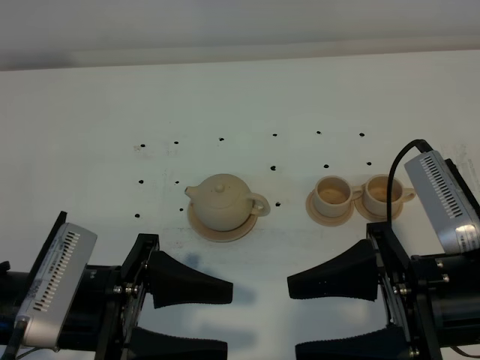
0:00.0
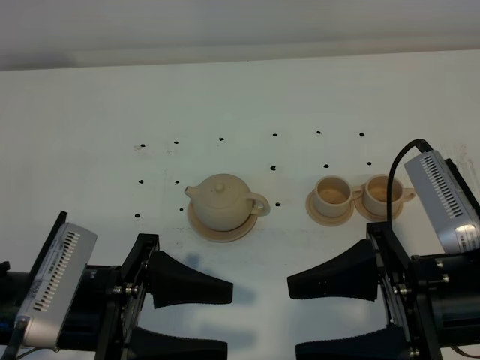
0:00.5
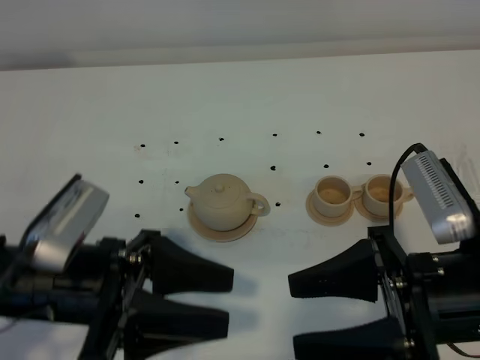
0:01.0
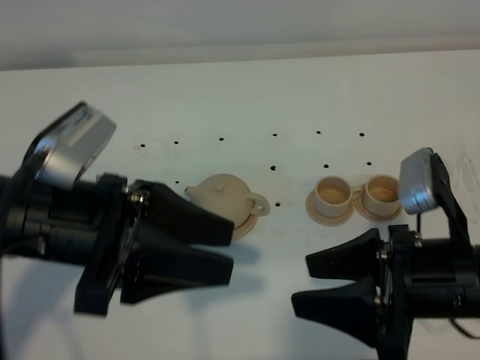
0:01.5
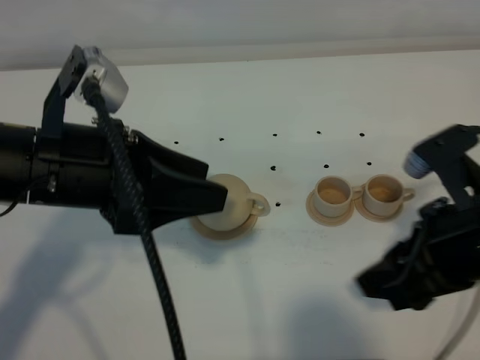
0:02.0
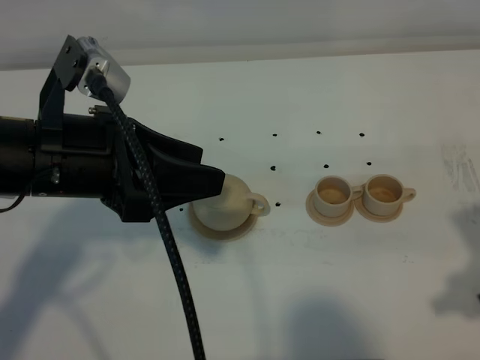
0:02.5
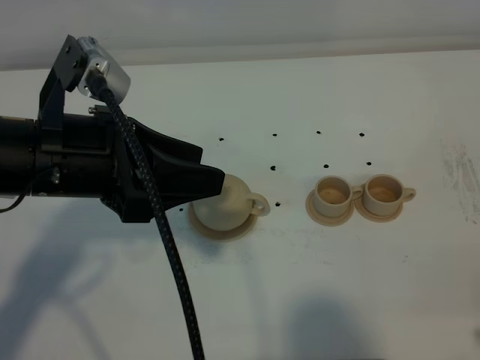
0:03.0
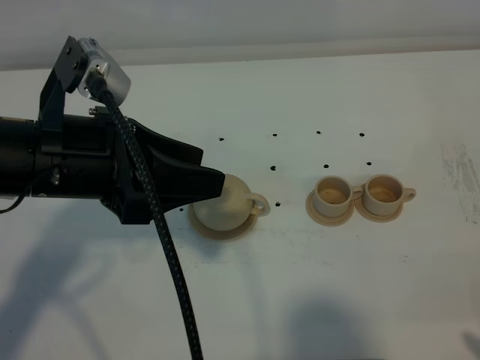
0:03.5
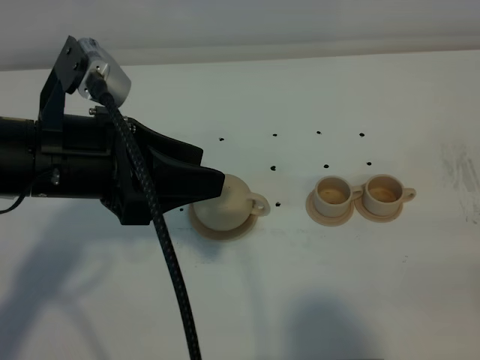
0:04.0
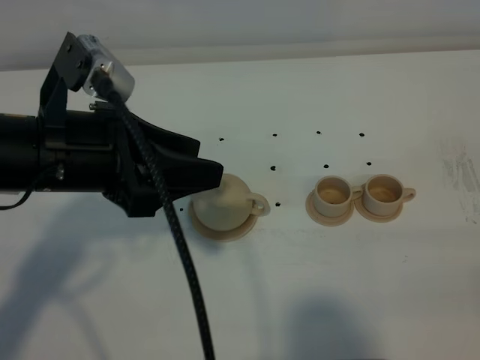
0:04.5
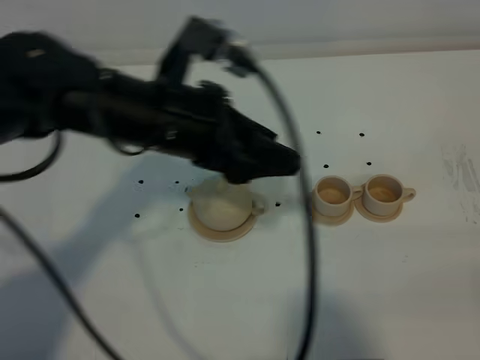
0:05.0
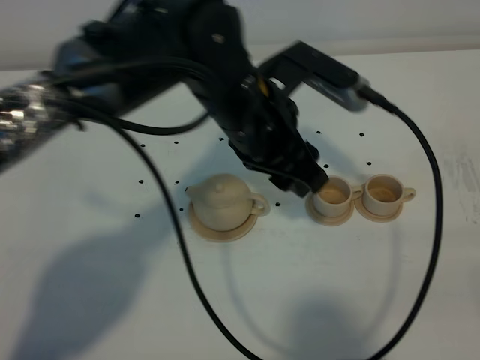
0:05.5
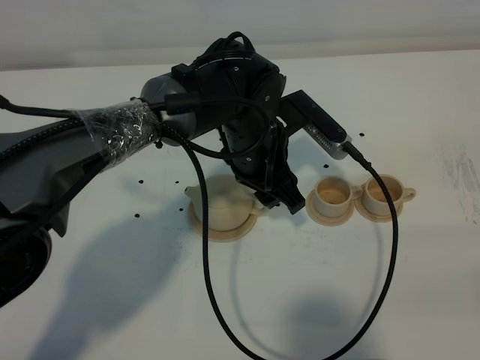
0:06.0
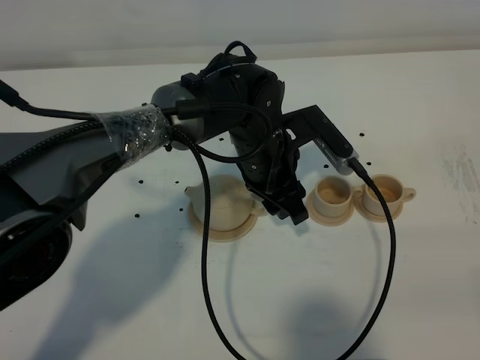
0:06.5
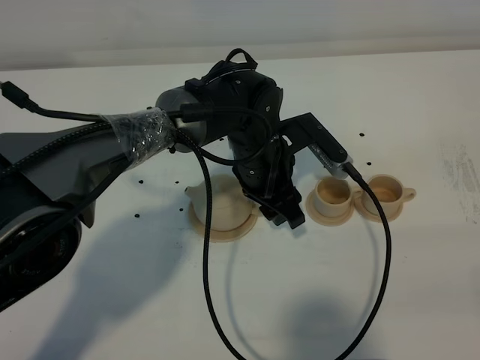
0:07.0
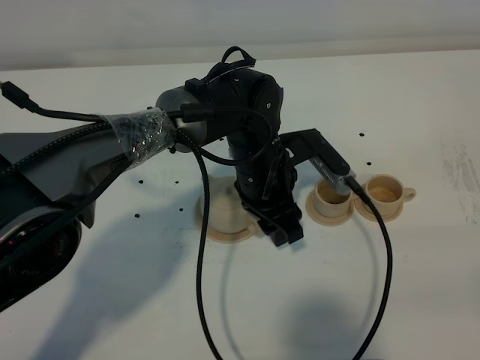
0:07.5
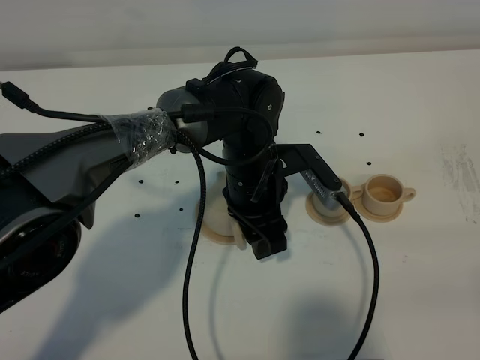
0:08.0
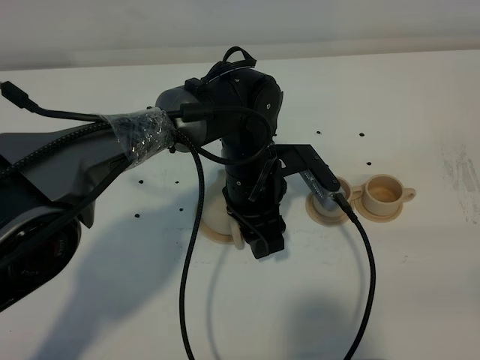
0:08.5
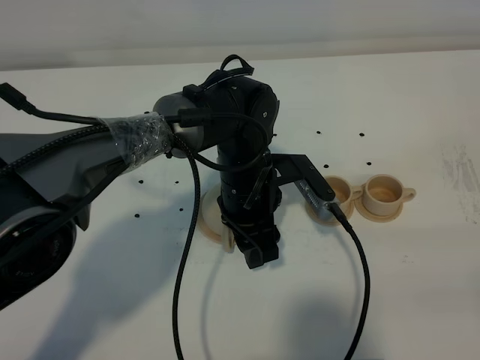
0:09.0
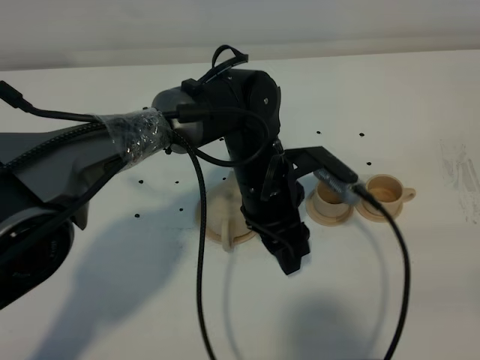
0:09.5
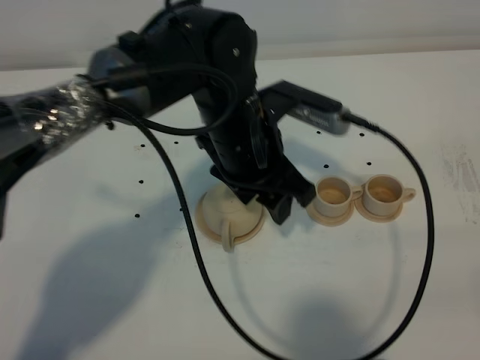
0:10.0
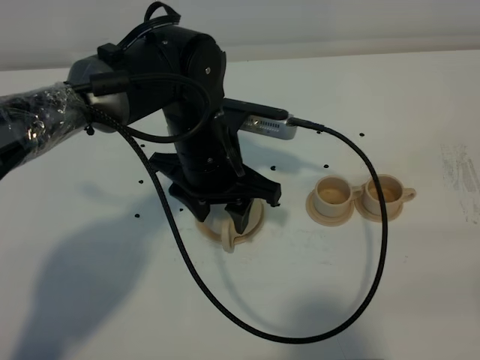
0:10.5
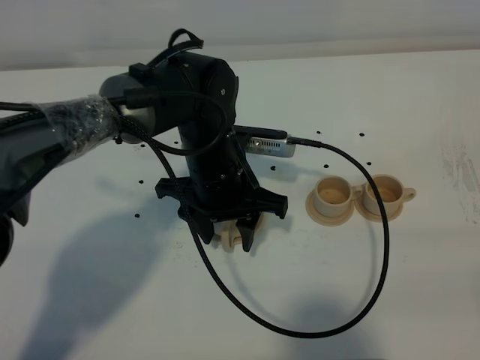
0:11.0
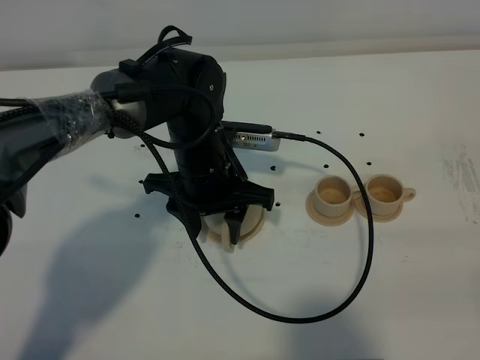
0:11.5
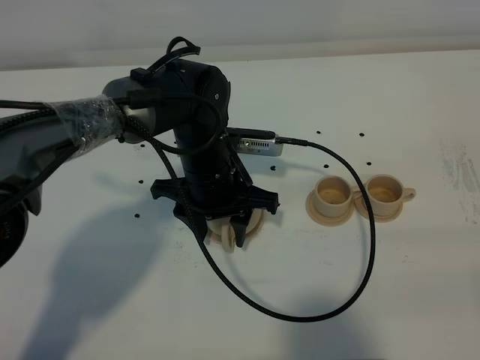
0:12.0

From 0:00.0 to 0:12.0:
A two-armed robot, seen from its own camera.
Task of the whole recording: grasp the brown teapot and pour the tea into the two brown teacups one by one, put the brown teapot back in its original place.
From 0:00.0 to 0:02.0: The right gripper ends up some 5 cm from where it was. The left gripper moves upward and forward, some 15 cm.
From 0:02.0 to 0:04.0: The right gripper goes roughly 20 cm backward and to the right.
From 0:04.0 to 0:06.0: The left gripper travels to the right, forward and downward by roughly 25 cm.
From 0:06.0 to 0:08.0: The right gripper closes its fingers.
From 0:08.0 to 0:10.0: The left gripper shifts approximately 10 cm upward.
From 0:10.0 to 0:12.0: The left gripper goes roughly 10 cm downward.

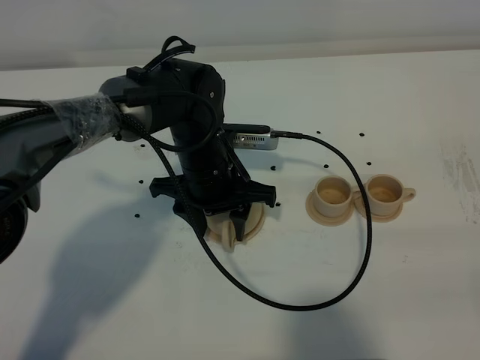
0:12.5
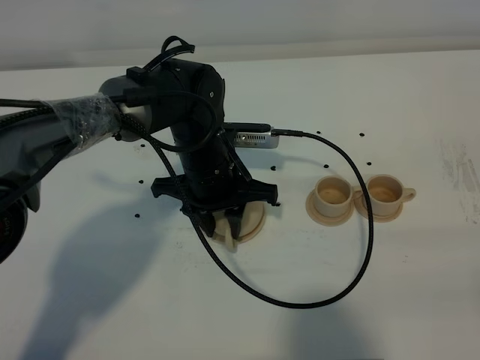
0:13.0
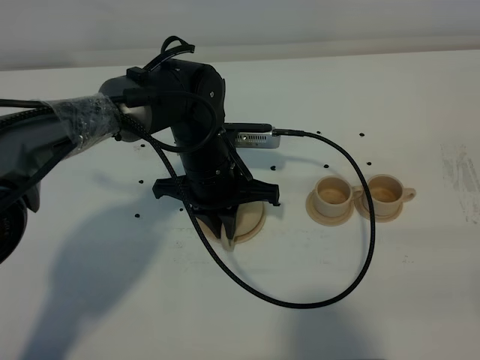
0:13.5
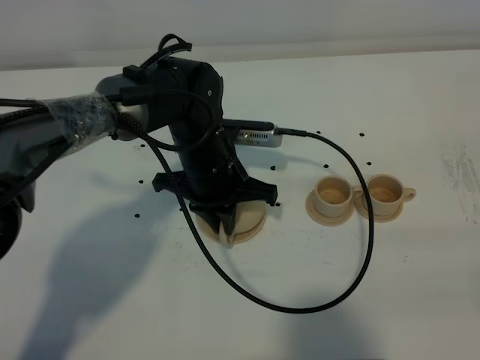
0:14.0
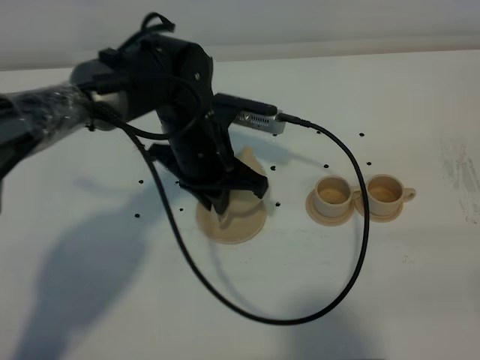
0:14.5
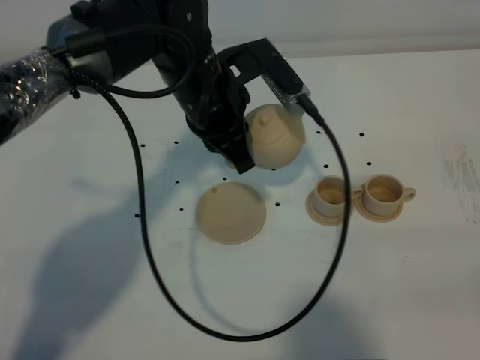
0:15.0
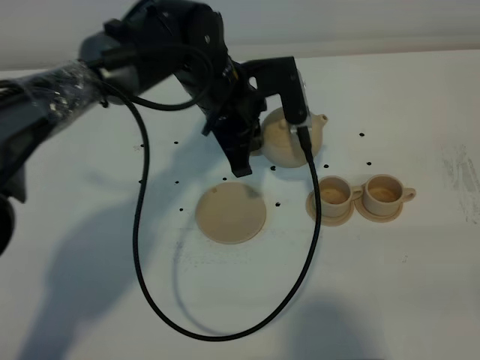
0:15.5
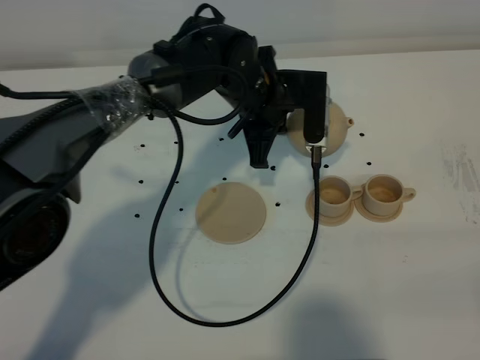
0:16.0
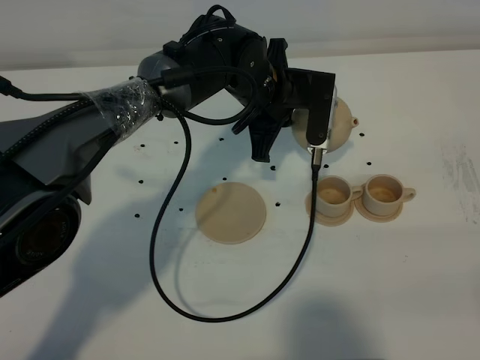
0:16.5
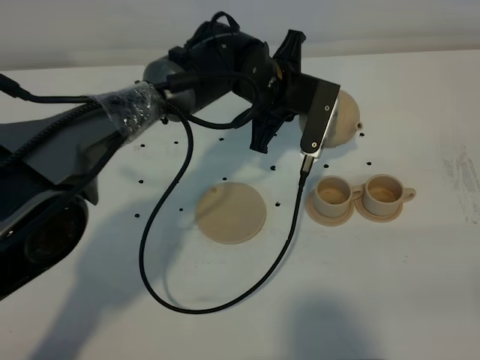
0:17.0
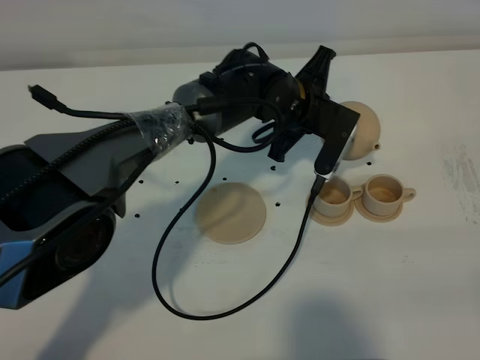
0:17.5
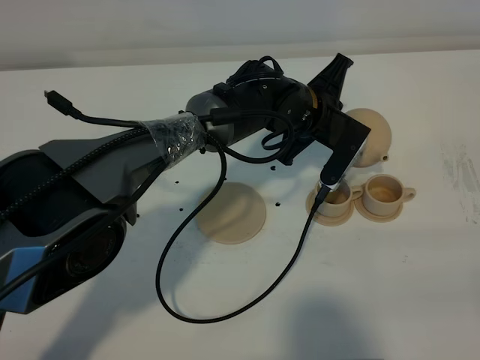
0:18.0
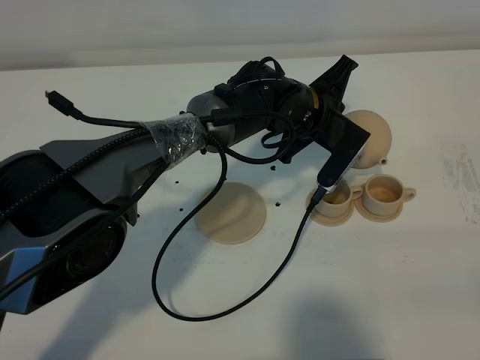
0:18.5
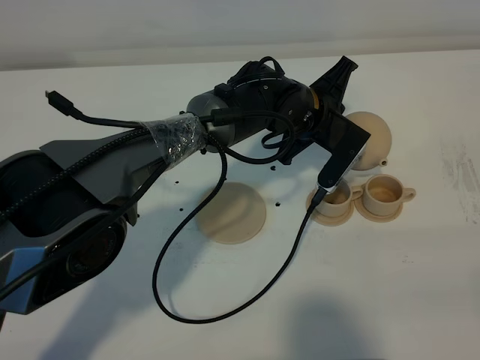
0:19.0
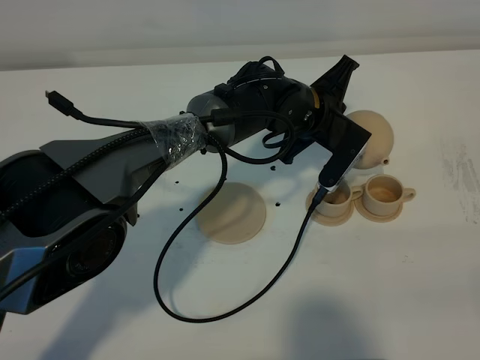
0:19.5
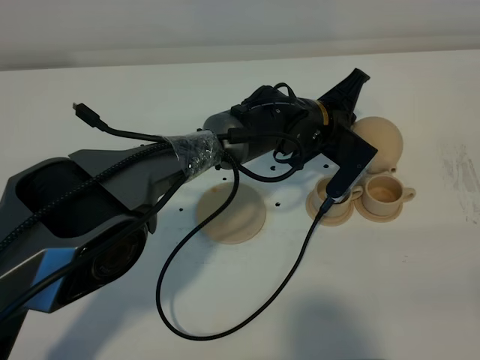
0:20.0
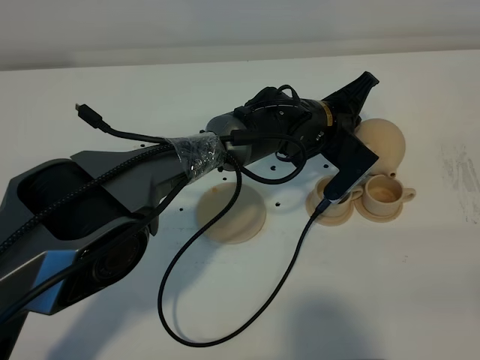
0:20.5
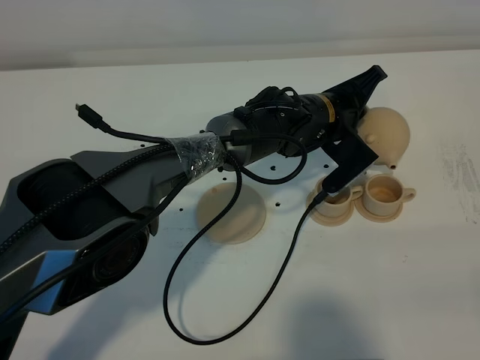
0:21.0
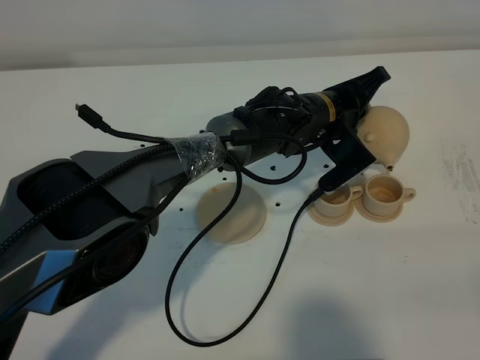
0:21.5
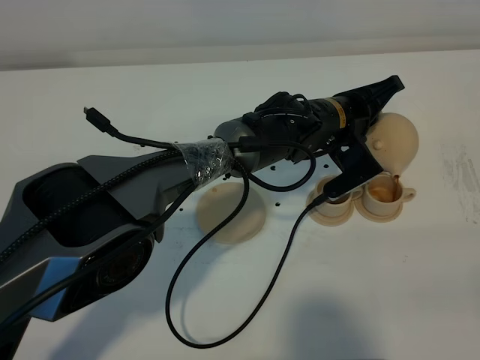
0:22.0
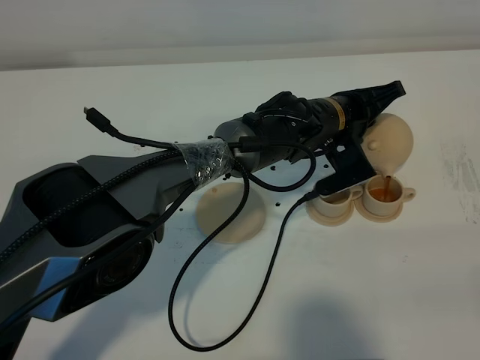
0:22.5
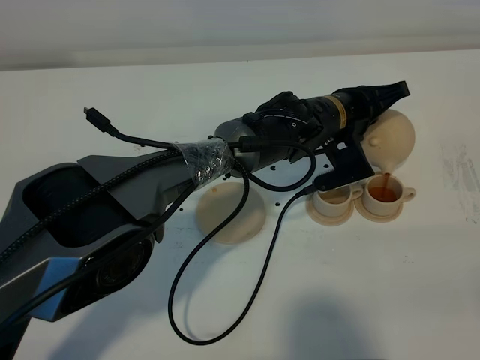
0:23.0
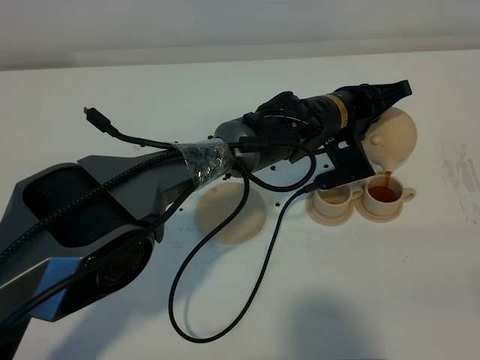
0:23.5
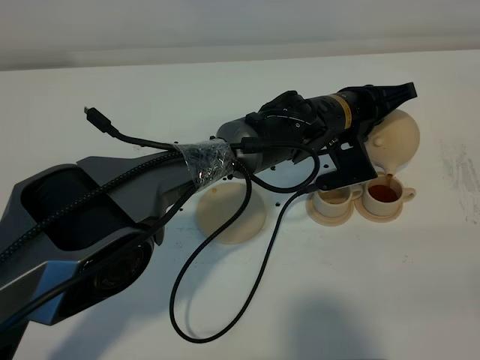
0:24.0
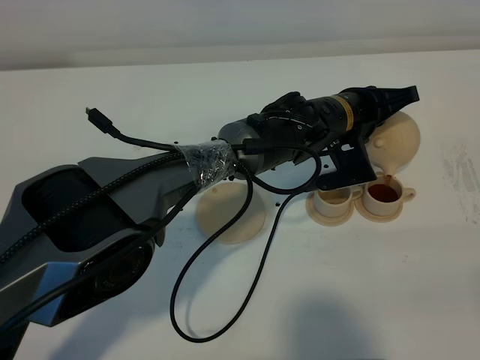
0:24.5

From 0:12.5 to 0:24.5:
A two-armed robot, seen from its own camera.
Task of the whole recording: grasp the brown teapot and pour the tea into the two brown teacups one by one, put the brown teapot back in its original place.
From 0:12.5 to 0:14.5: The left gripper closes its fingers.
From 0:14.5 to 0:16.5: The left gripper goes about 10 cm to the right and forward.
From 0:16.5 to 0:18.5: The left gripper moves to the right, approximately 5 cm.
From 0:22.5 to 0:24.5: There are only small adjustments of the grippers.

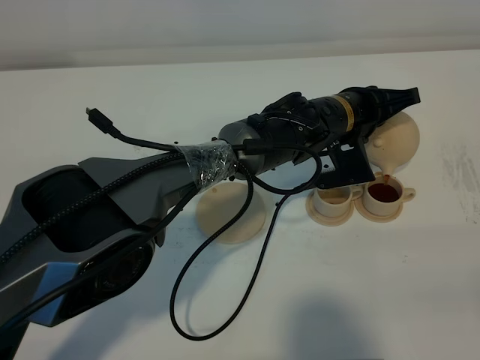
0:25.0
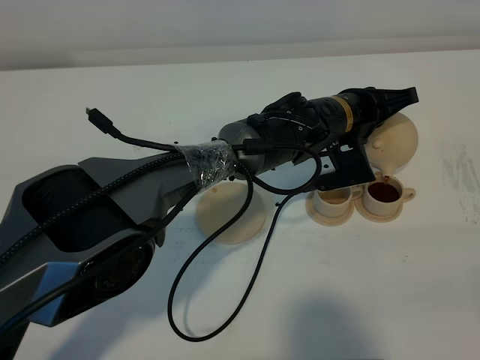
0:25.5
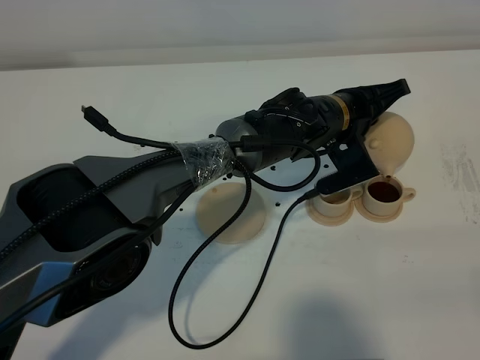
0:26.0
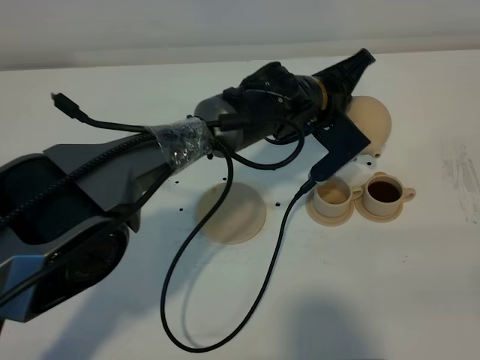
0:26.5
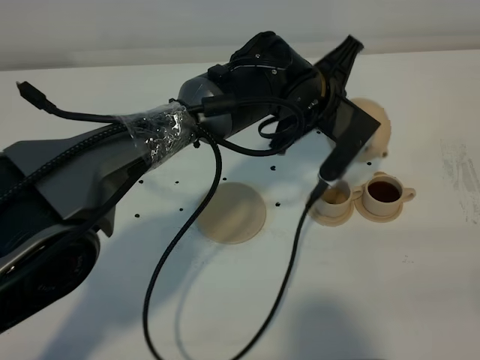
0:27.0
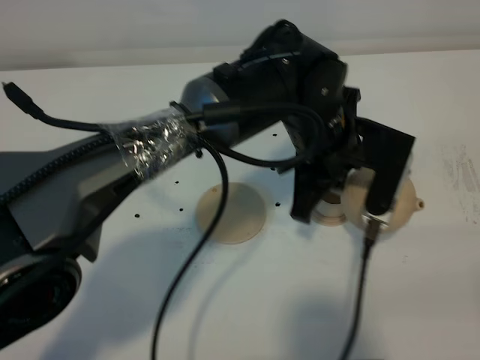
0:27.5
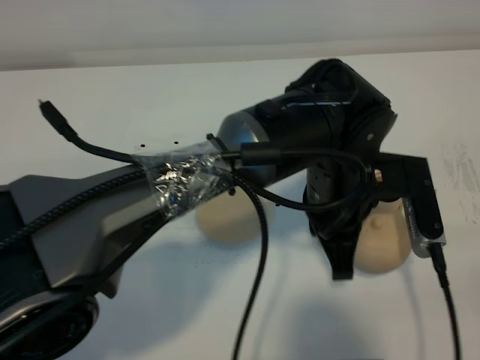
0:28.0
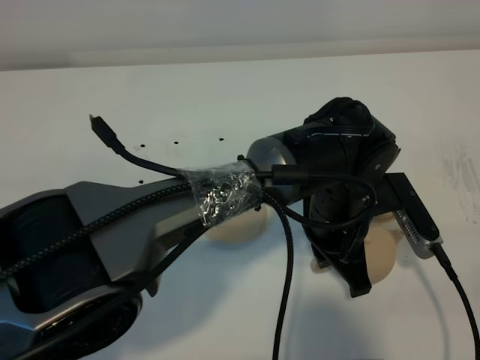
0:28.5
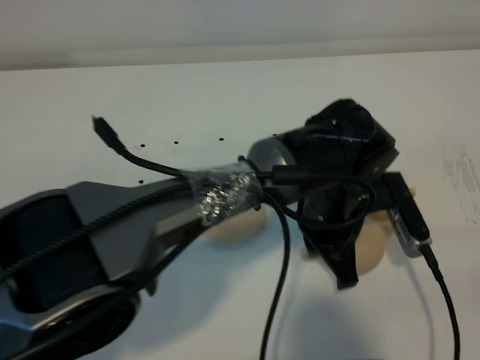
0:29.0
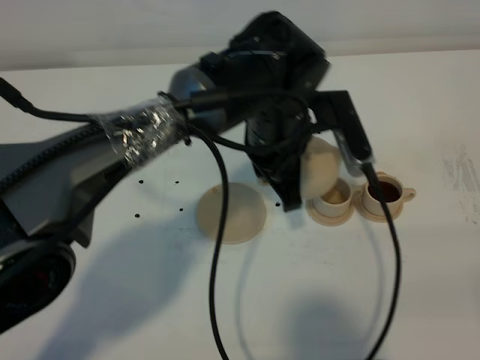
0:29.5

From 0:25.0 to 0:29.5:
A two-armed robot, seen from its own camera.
Task of the whole recording: grasp the brown teapot and pour the tea into the two brown teacups one by one, put the brown teapot back in its original place.
From 0:25.0 to 0:27.0: The left gripper moves upward, some 5 cm.
From 0:27.0 to 0:29.5: The left gripper reaches roughly 10 cm backward, then returns.
